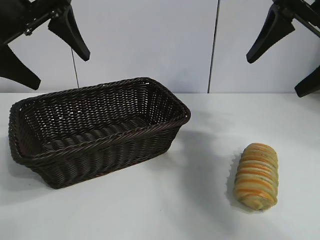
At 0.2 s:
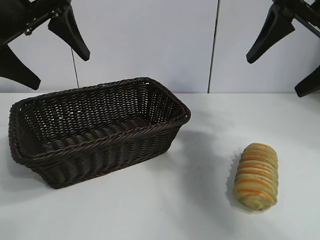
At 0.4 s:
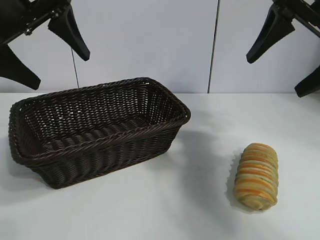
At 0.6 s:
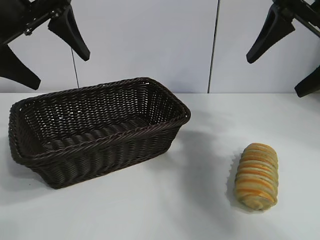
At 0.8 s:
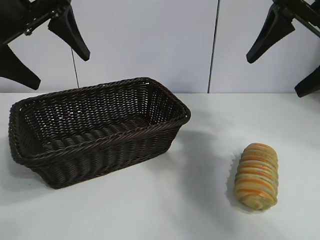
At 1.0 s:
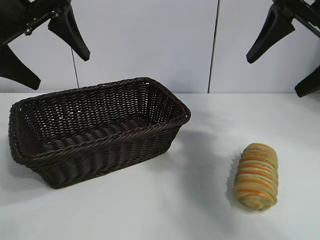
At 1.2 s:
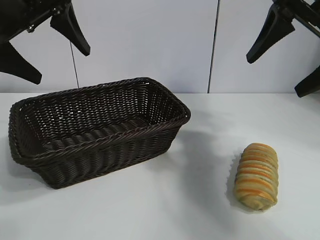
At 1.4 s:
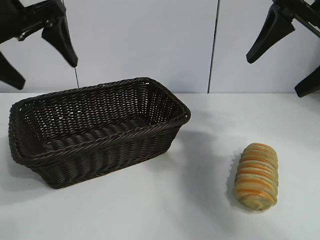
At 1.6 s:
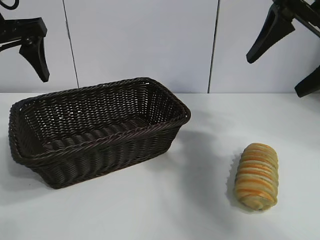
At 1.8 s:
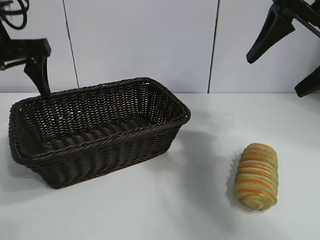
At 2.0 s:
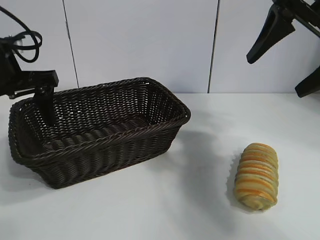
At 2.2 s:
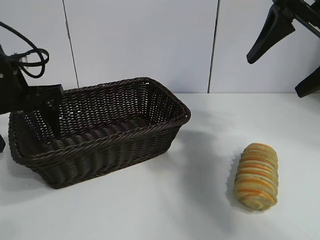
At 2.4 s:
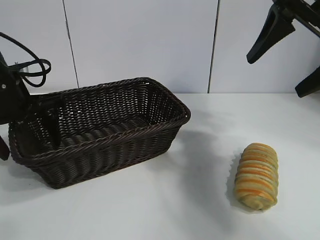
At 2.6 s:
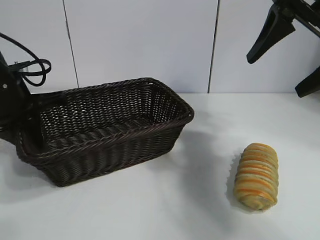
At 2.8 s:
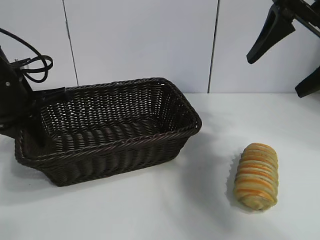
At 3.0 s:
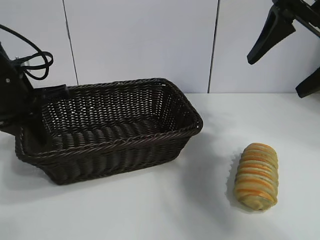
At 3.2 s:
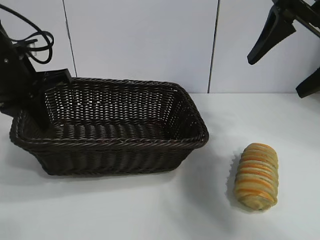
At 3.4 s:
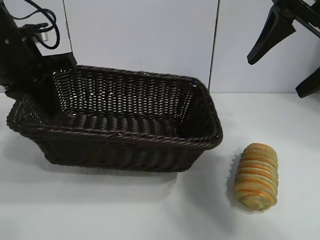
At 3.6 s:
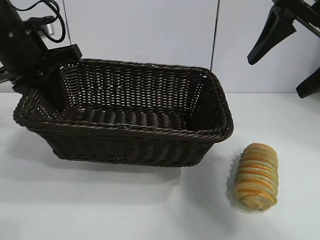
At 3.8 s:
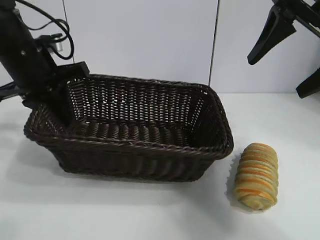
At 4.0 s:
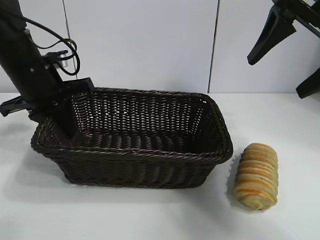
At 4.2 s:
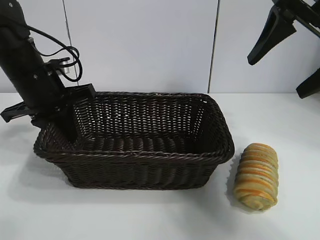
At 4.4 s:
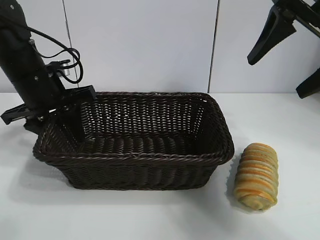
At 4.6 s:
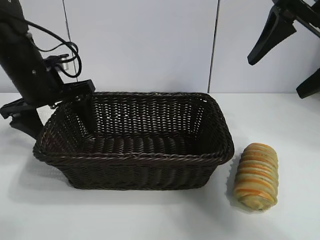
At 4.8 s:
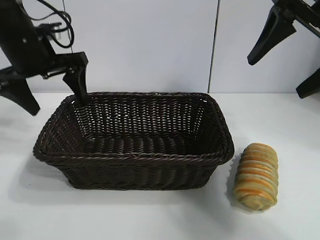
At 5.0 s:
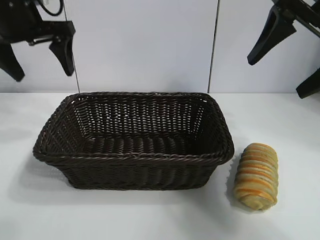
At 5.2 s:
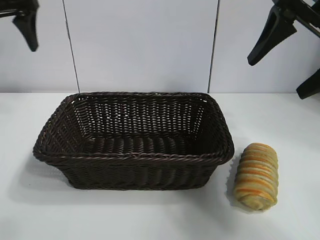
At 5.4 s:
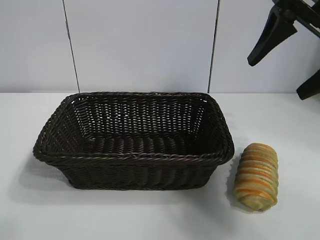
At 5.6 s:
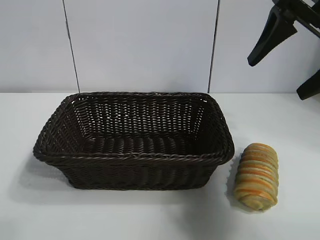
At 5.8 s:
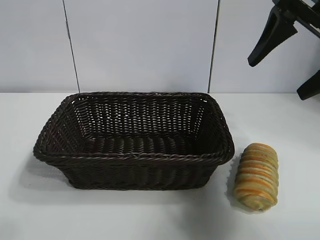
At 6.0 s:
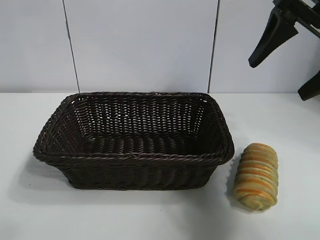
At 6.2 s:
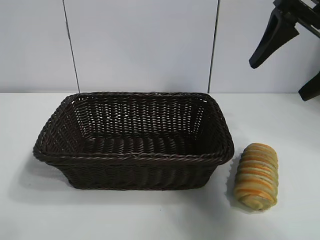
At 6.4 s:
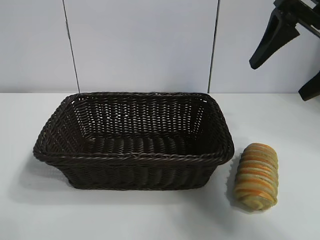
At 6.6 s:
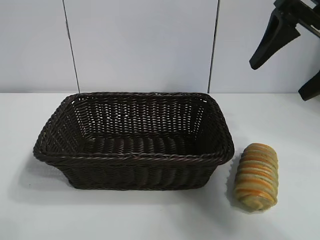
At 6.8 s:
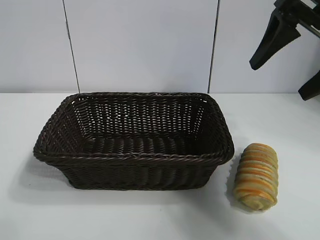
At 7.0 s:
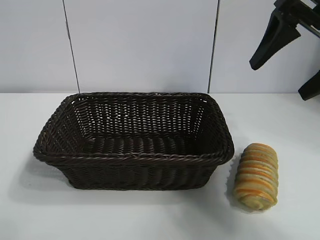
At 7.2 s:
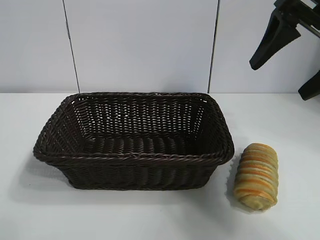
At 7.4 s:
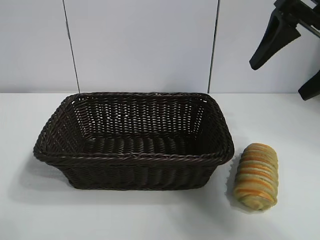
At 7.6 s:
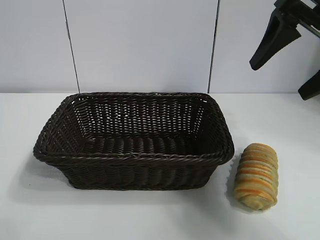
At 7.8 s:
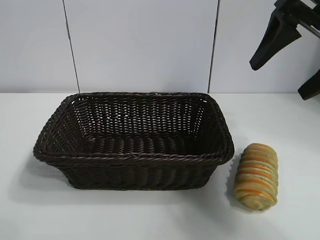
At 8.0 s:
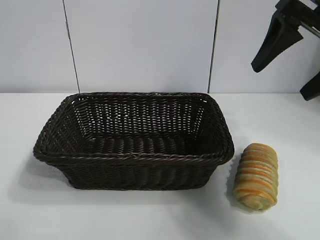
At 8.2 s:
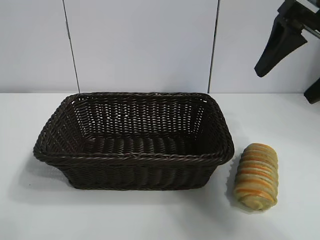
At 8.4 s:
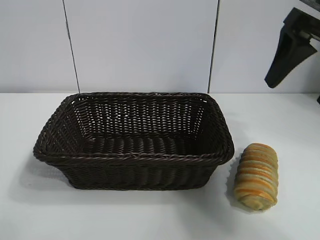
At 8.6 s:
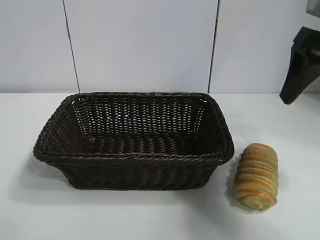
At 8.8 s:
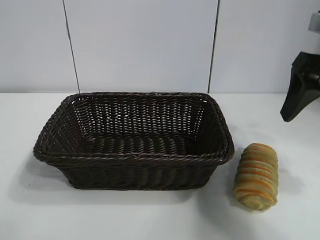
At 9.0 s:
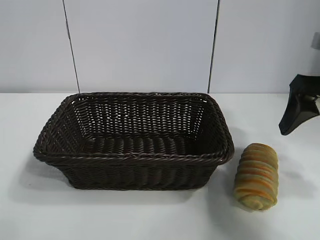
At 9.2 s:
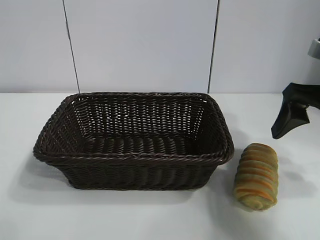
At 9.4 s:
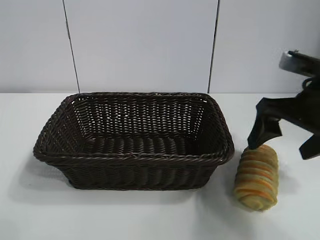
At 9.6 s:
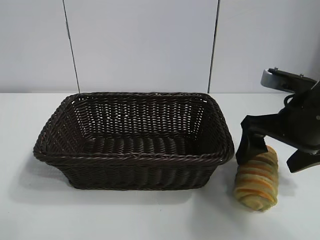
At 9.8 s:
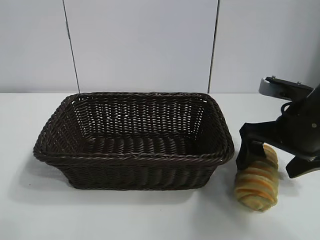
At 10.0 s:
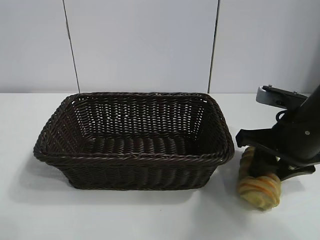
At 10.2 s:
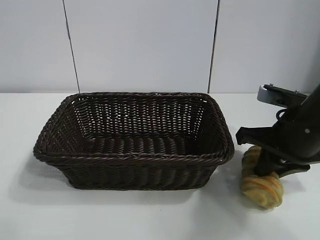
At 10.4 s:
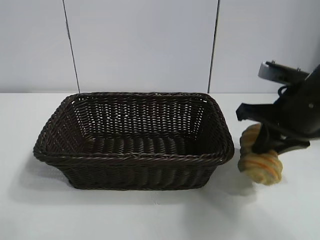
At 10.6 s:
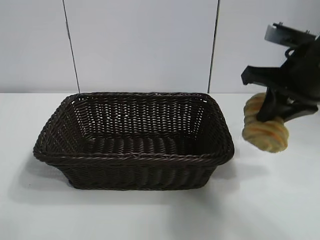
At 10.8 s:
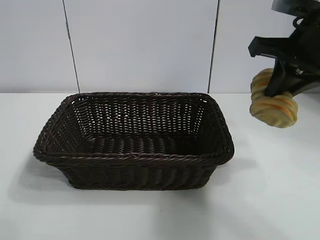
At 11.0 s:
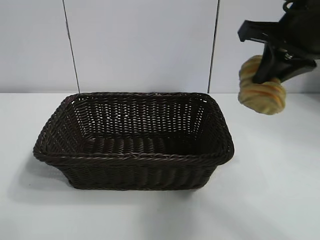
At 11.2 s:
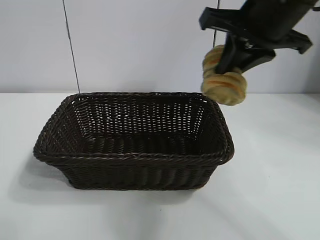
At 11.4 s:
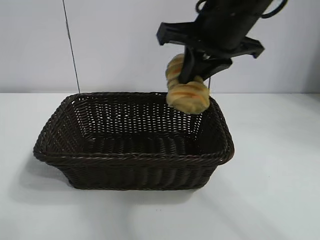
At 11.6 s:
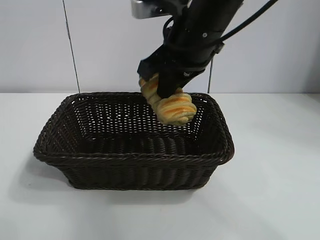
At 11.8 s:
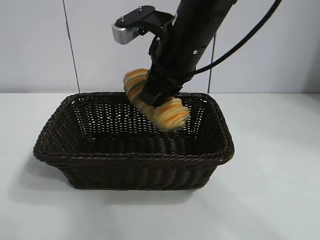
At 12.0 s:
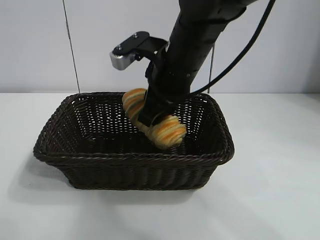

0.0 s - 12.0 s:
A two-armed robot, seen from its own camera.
Task of the whole recording: pick up the long bread and put it into the basket.
Step, 1.0 s - 2.8 s: Grasp the basket with the left gripper.
Step, 3.0 s - 4.4 s: Place the basket in the center of the table with the left gripper.
Step, 4.8 s - 10.0 s: Grasp the long bread with right gripper.
